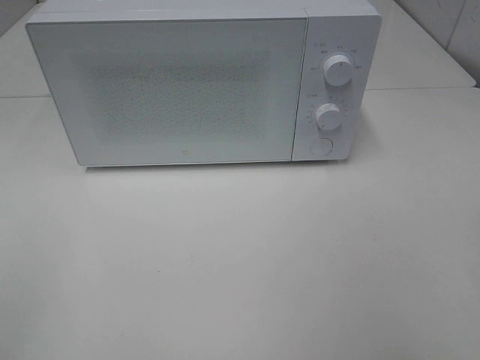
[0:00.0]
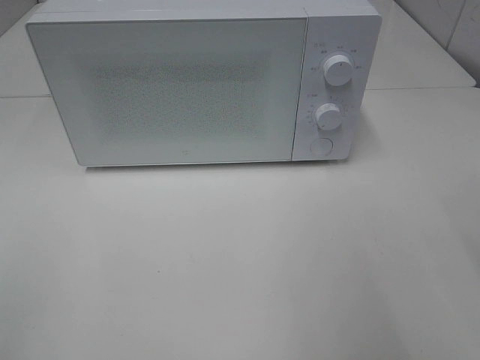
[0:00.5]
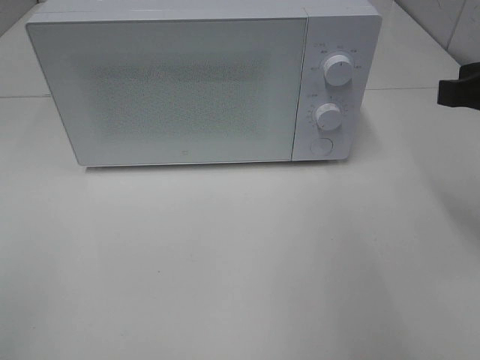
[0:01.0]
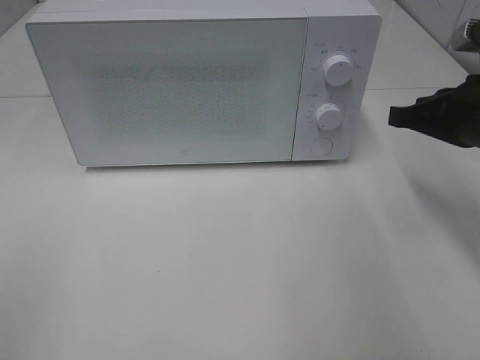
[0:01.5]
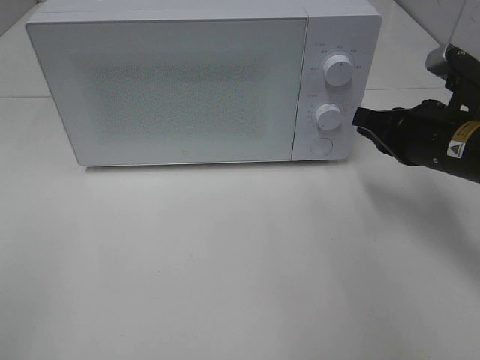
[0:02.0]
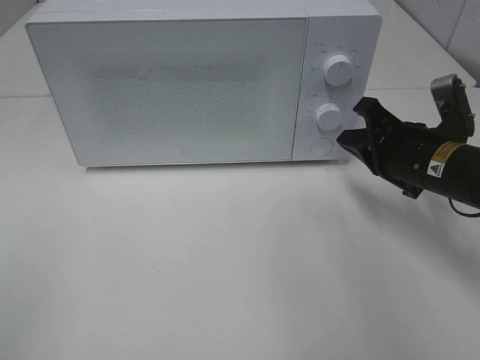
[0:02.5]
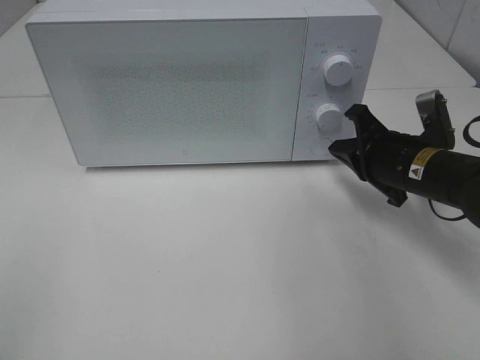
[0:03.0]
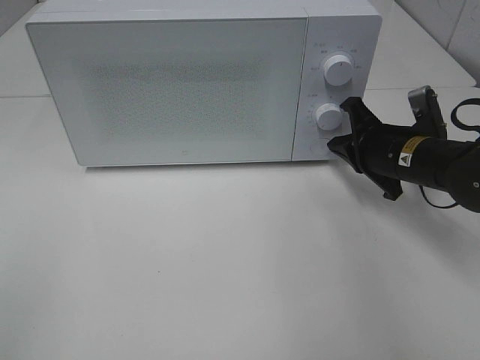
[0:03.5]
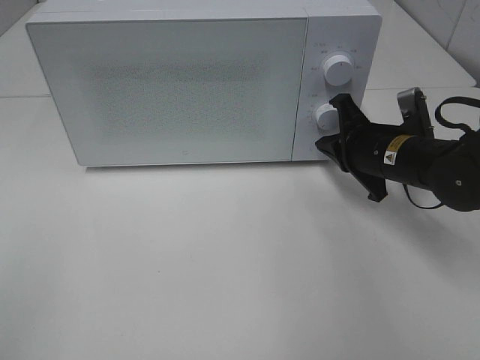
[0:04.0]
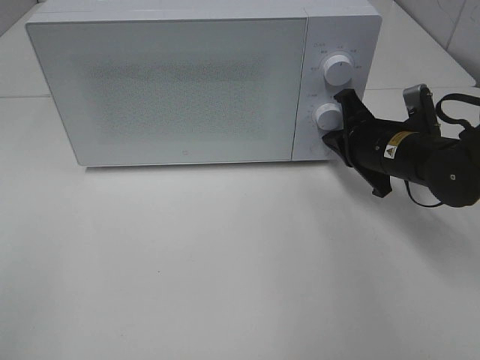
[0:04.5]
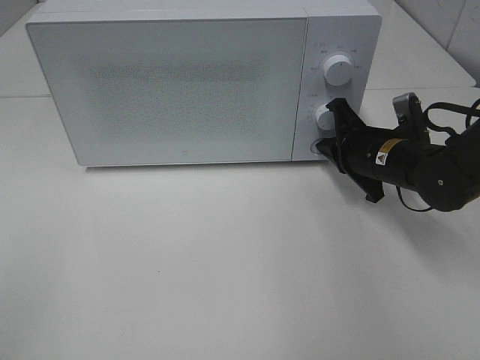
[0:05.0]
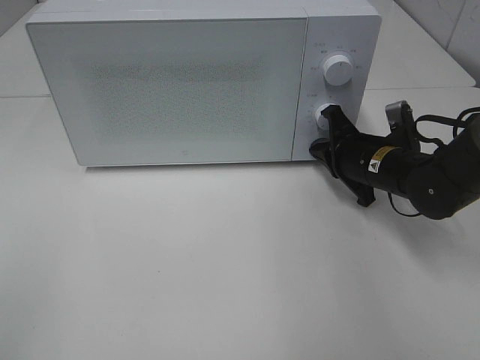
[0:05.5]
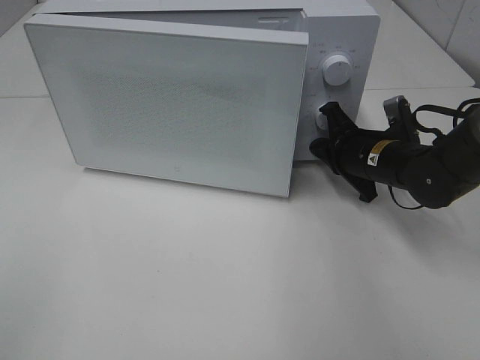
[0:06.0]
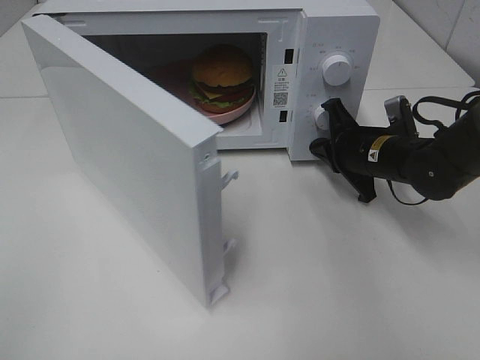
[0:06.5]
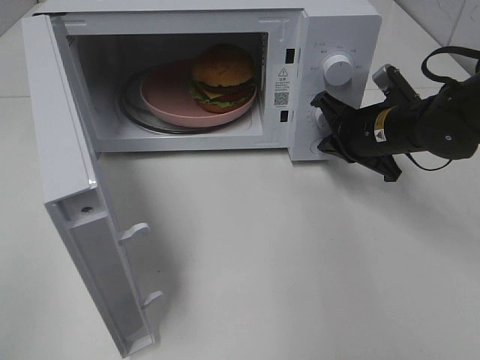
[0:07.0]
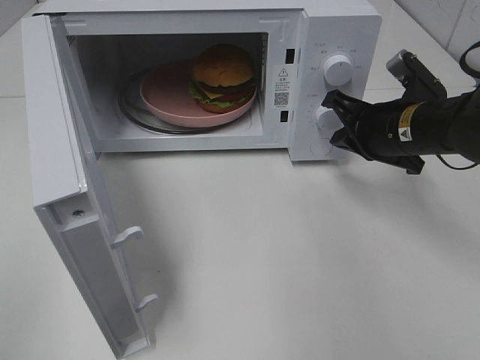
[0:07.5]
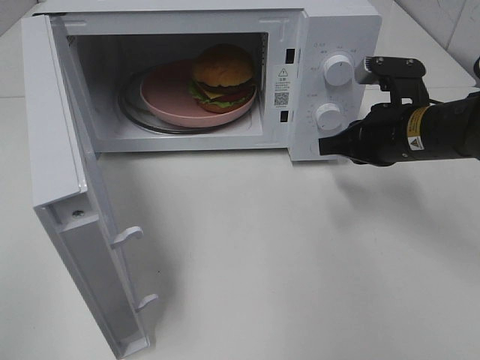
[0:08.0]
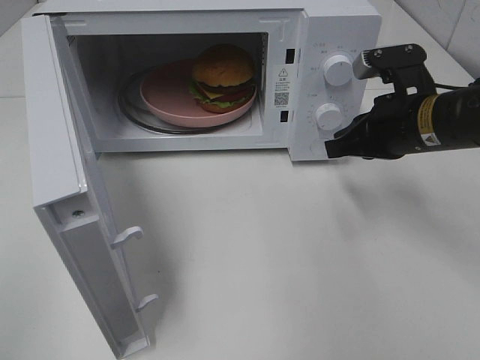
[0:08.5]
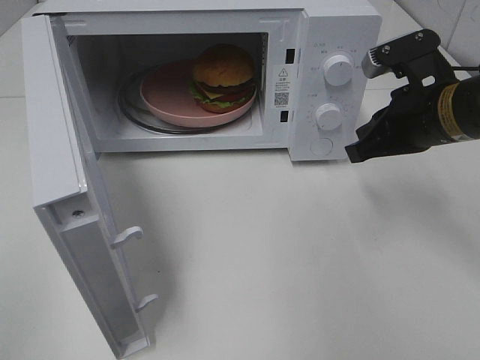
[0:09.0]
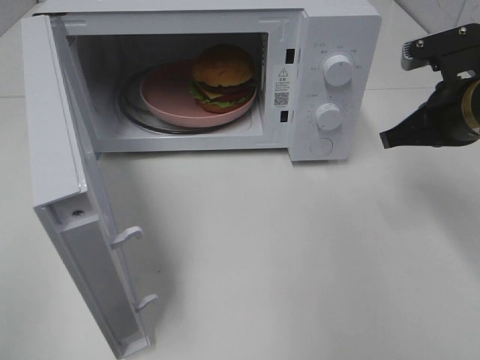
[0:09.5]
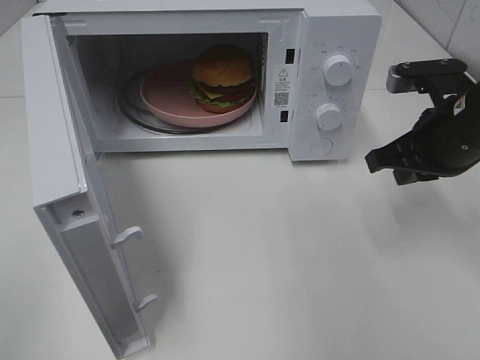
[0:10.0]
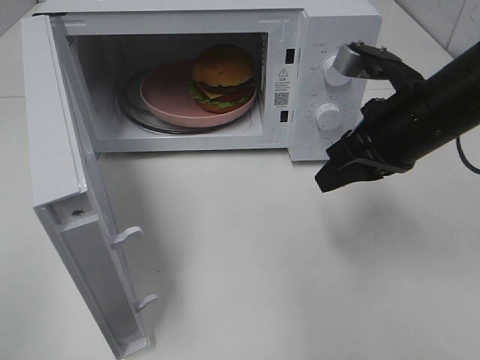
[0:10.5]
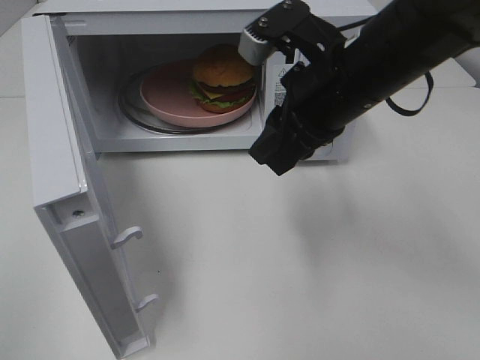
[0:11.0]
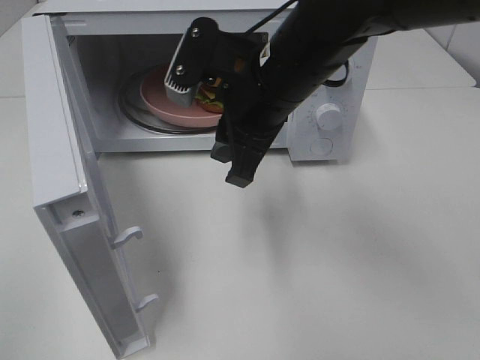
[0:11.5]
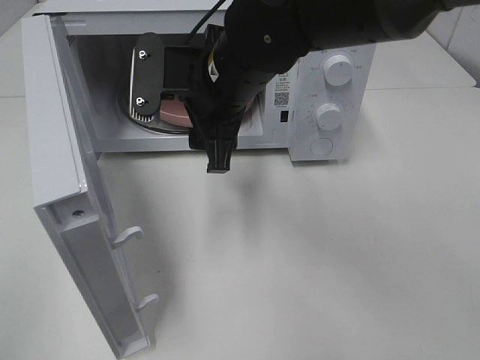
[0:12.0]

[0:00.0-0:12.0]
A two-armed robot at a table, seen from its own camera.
Task of the whole recording: Heat the burger.
Step, 0:00.0 to 0:07.0: Right hand: press the switch.
0:00.0 to 0:02.0: The right gripper is displaced forward and downward by about 20 cm, and closes.
0:02.0 to 0:04.0: The right gripper moves downward and forward, about 10 cm.
0:04.0 to 0:06.0: The grippers stay close to where they were, moving slightly.
0:06.0 to 0:08.0: The right gripper heads upward and backward, covering some 10 cm.
0:08.0 to 0:10.0: The right gripper shifts by roughly 5 cm.
0:10.0 to 0:12.0: The right gripper heads to the left, covering some 25 cm, and opens up.

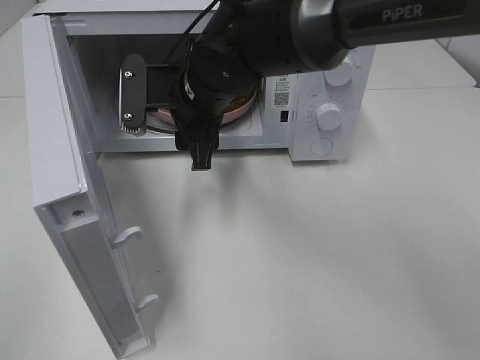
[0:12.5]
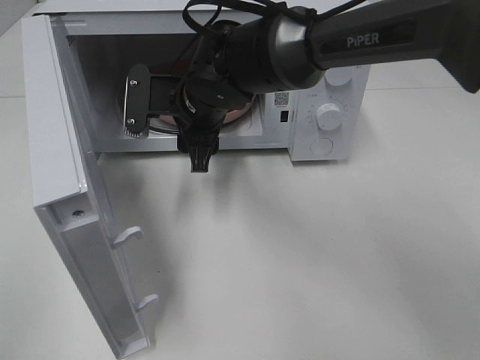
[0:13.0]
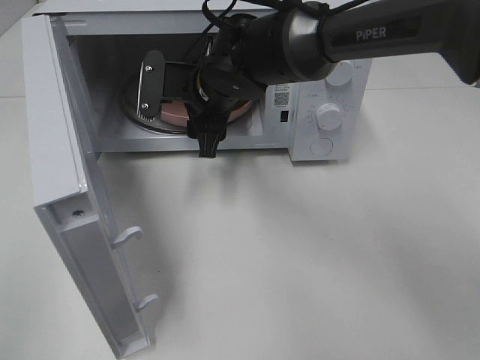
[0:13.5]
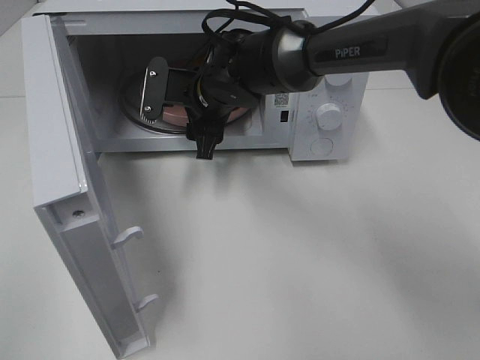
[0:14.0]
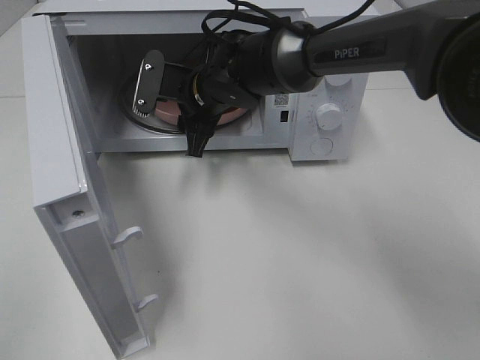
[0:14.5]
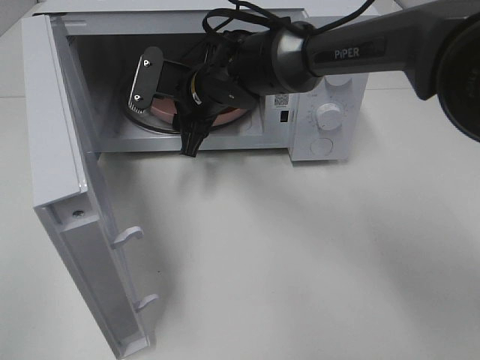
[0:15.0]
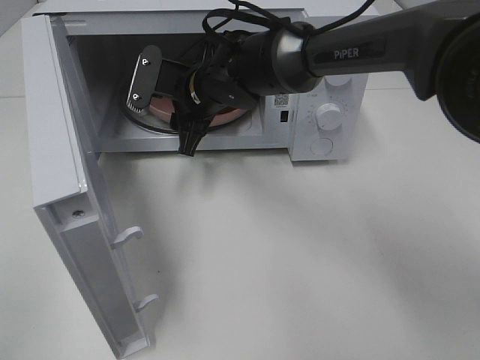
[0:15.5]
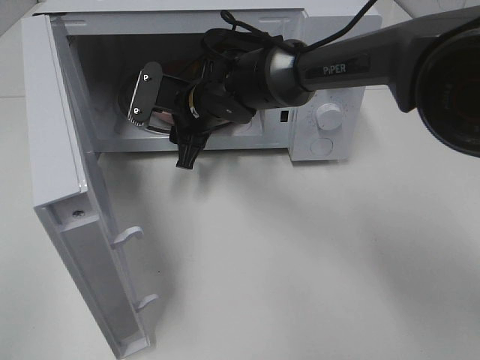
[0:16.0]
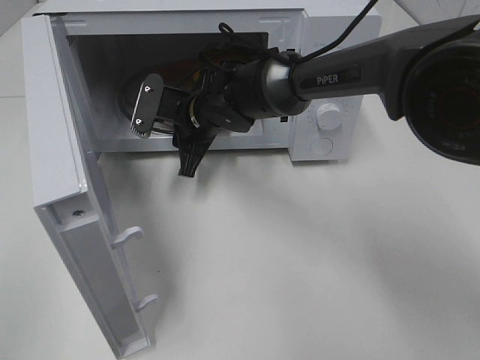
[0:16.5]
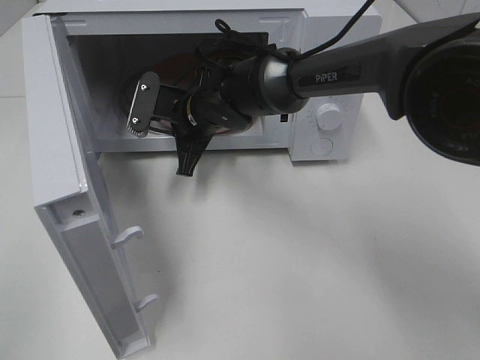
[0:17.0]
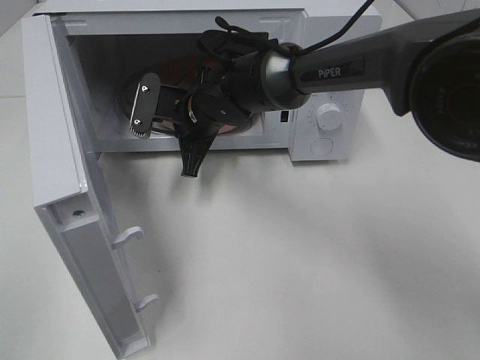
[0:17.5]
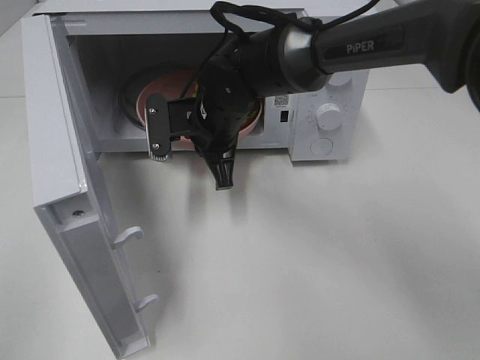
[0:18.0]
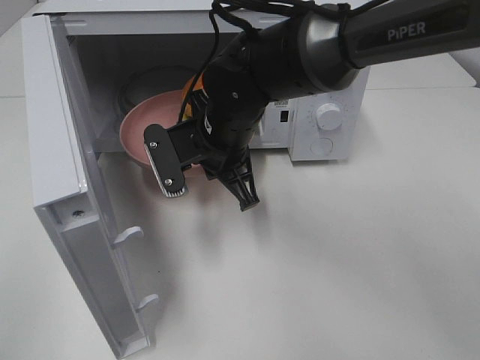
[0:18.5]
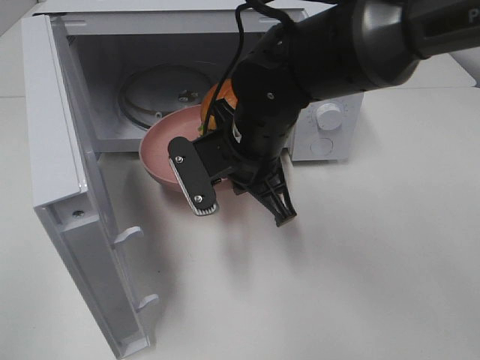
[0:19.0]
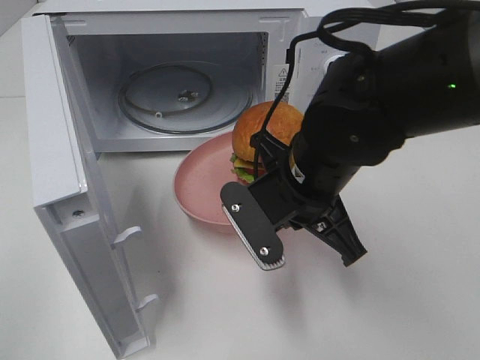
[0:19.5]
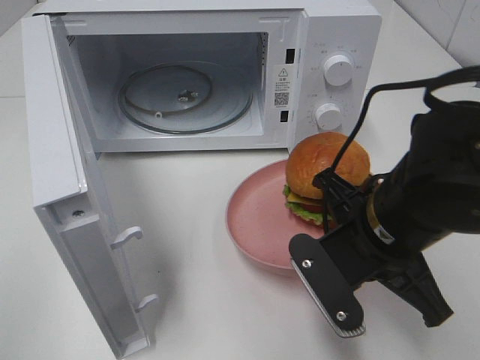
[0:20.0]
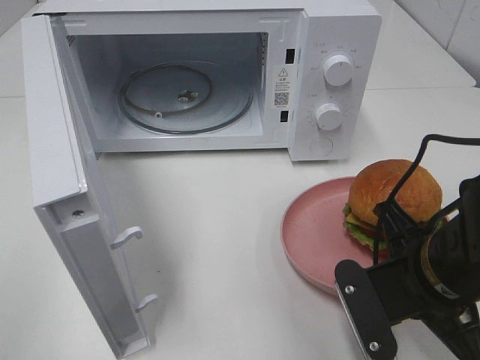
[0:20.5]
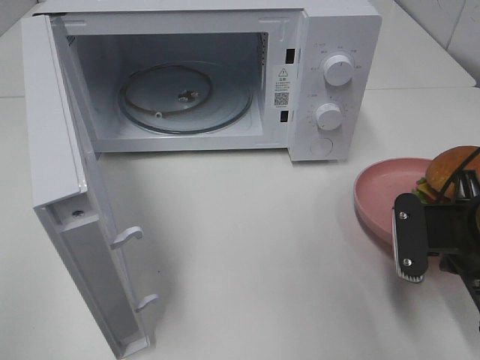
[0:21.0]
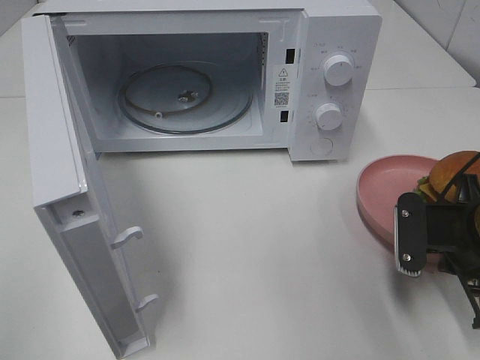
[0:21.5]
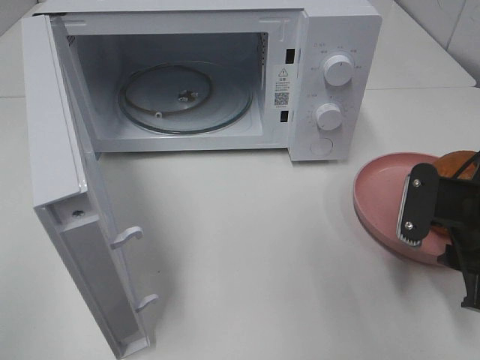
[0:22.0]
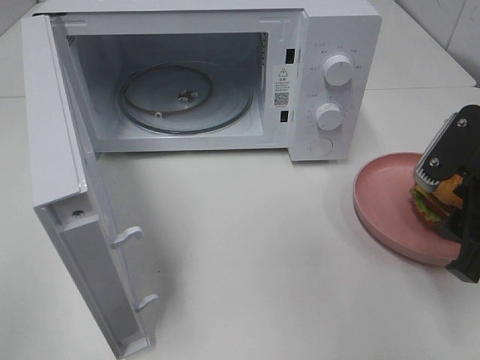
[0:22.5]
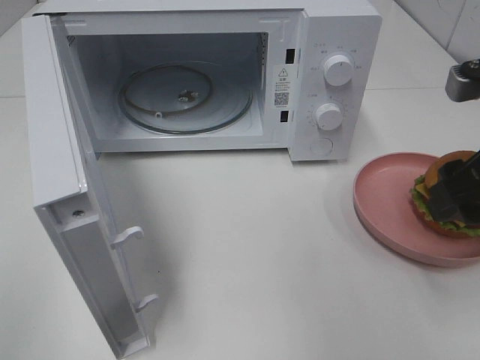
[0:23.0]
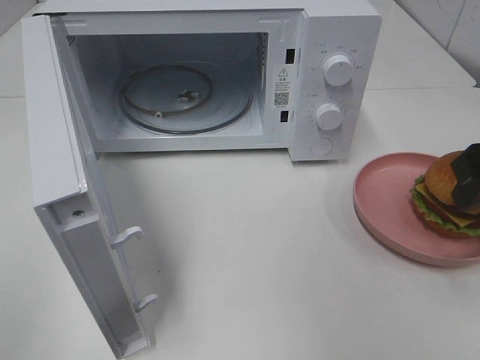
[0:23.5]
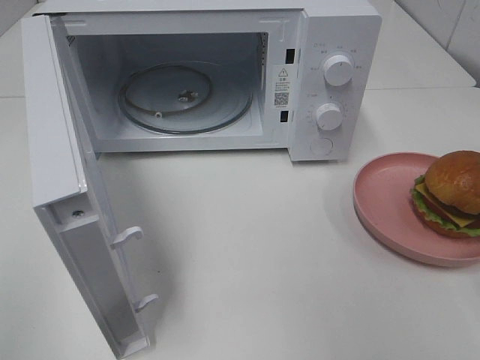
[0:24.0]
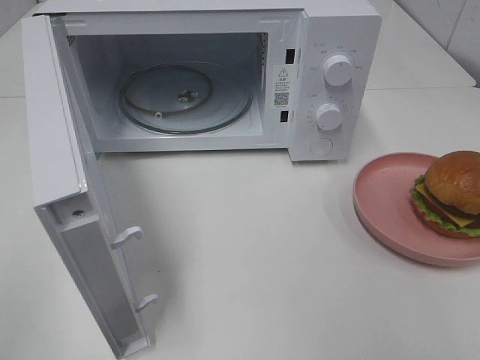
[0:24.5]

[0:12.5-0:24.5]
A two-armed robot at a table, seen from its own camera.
Task of the whole recording: Heat the burger.
Step, 0:12.5 to 0:16.5: Right hand: grab the plate with the hamburger.
Step, 0:17.0 to 0:21.5: Right hand: place the plate on the table.
0:12.5 to 0:14.5: The right gripper shifts roughly 5 cm forward.
0:14.5 to 0:16.5: The grippers move only a little.
0:16.5 to 0:18.5: The right gripper travels backward by about 10 cm, and closes its fingers.
0:18.5 to 0:20.5: The right gripper shifts some 25 cm to the right and backward.
0:20.5 to 0:22.5: The right gripper goes some 10 cm to the right and upward, and opens its fingers.
0:22.5 to 0:24.5: The right gripper shifts some 20 cm backward and upward.

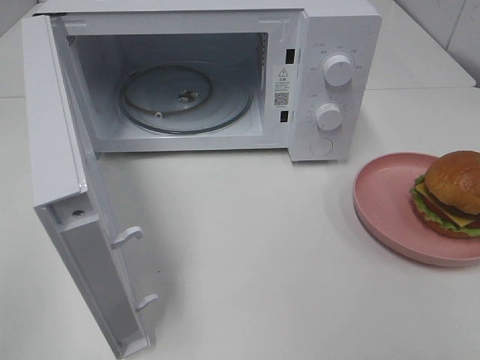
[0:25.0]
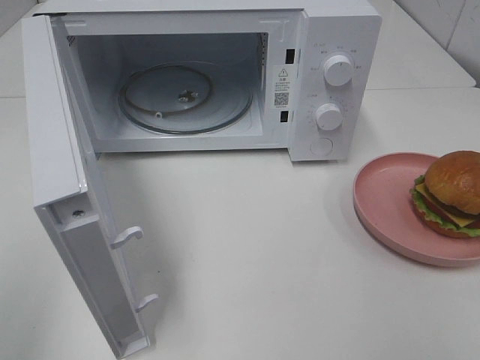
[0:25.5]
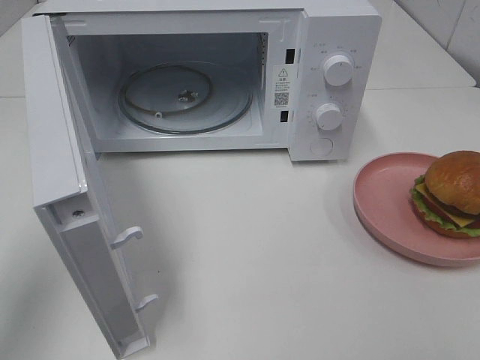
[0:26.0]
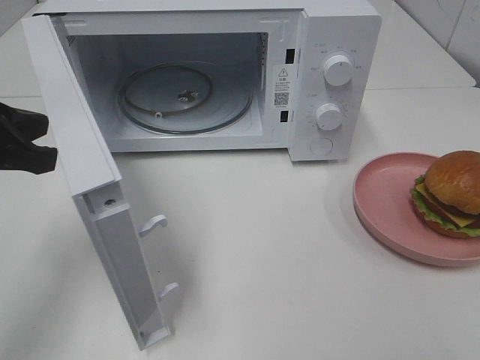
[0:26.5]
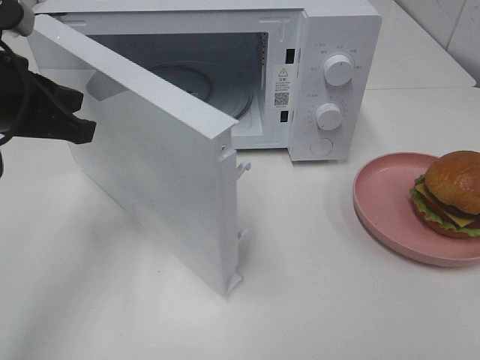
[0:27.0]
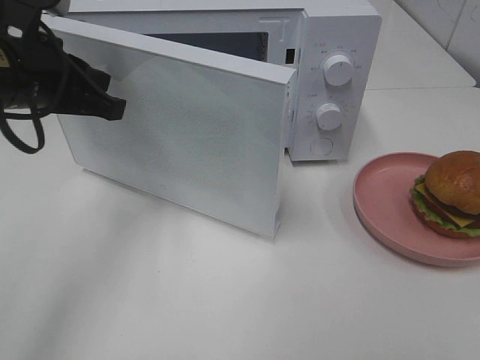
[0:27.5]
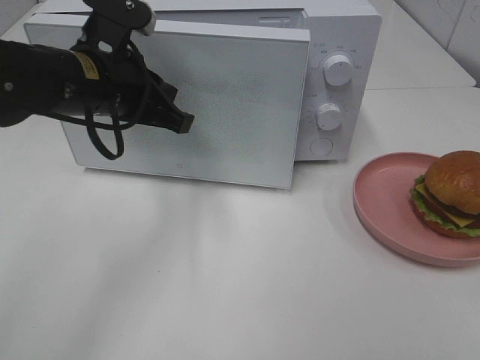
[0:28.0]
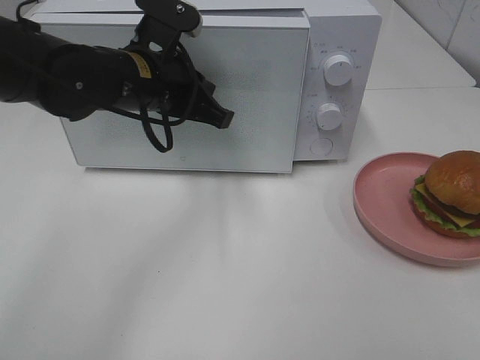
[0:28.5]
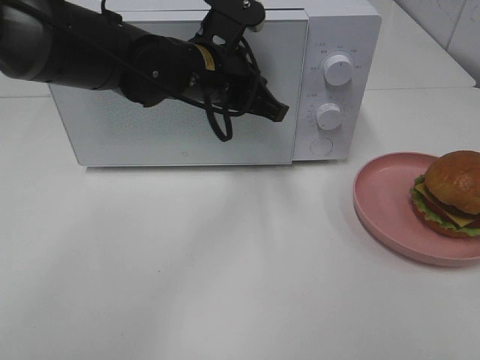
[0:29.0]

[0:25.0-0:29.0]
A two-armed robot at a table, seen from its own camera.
Task of the whole recording: Heat the burger.
Step, 0:25.0 to 0:29.0: Left hand: close the microwave door.
0:25.0 to 0:27.0: The left gripper moves forward and to the right, roughly 30 cm.
0:27.0 to 0:29.0: The left gripper shifts approximately 20 cm to the right and forward.
